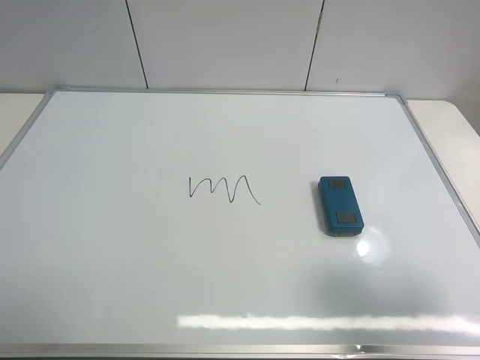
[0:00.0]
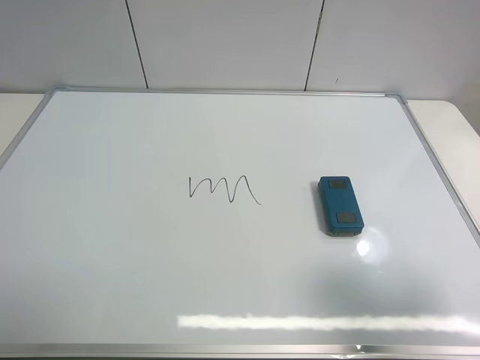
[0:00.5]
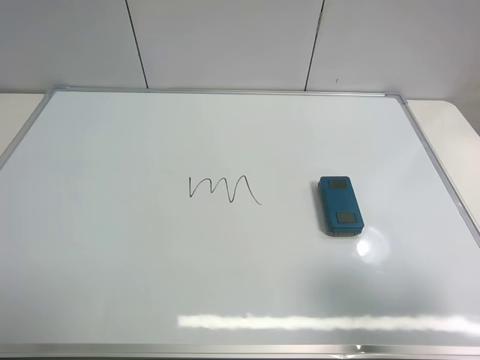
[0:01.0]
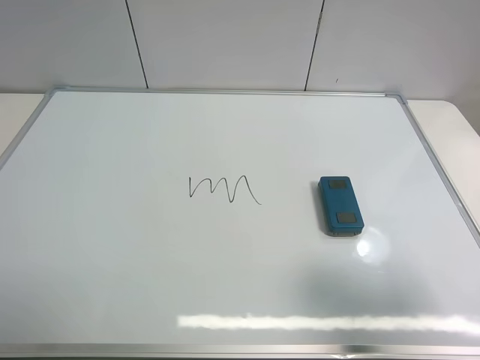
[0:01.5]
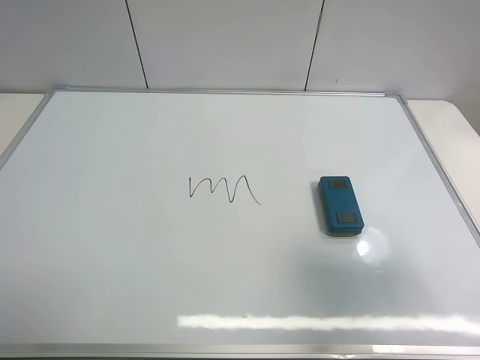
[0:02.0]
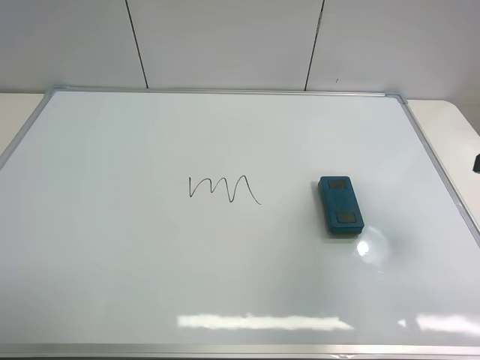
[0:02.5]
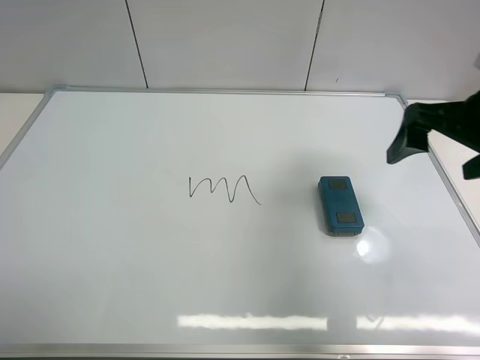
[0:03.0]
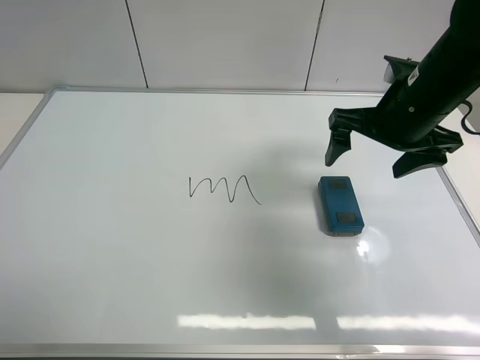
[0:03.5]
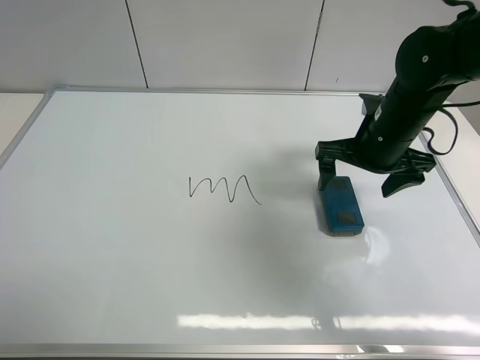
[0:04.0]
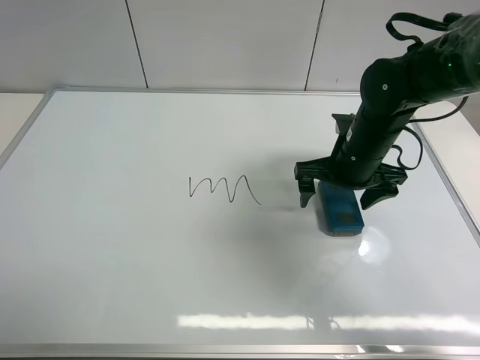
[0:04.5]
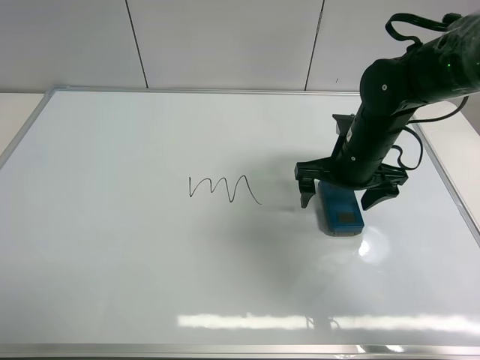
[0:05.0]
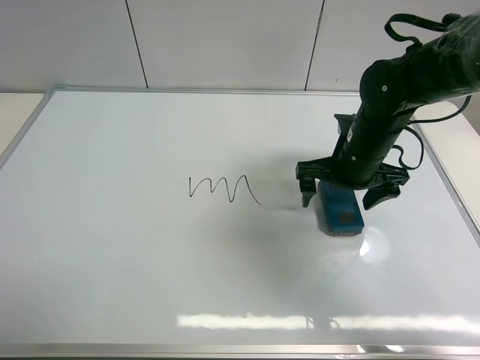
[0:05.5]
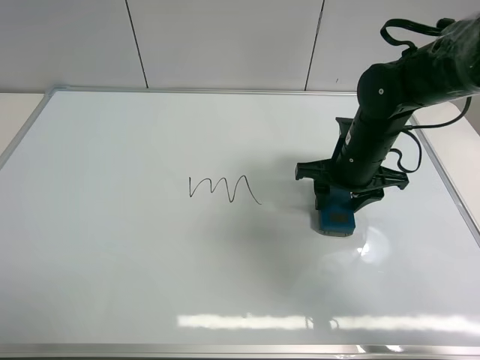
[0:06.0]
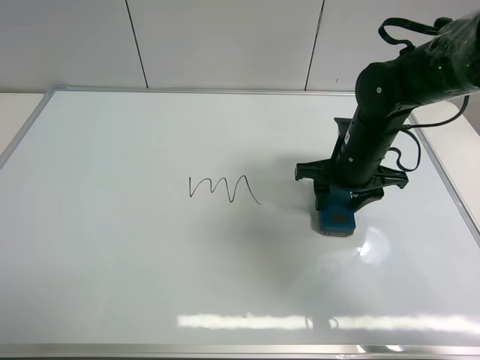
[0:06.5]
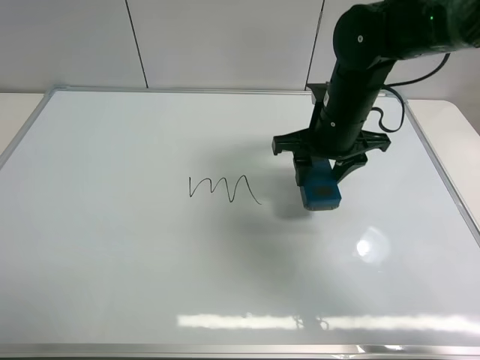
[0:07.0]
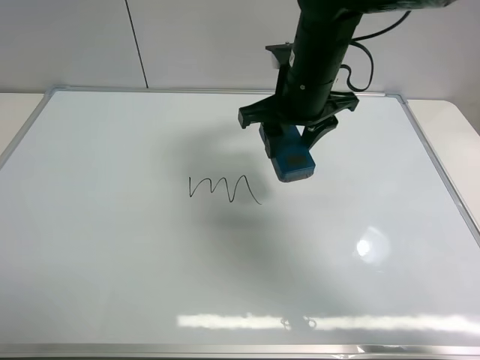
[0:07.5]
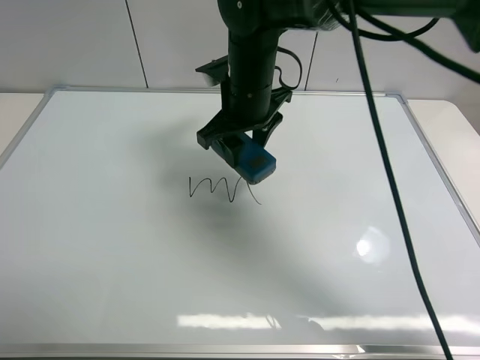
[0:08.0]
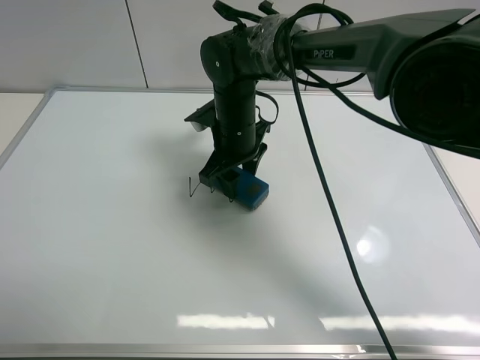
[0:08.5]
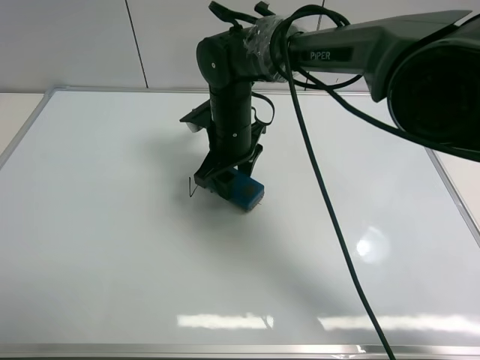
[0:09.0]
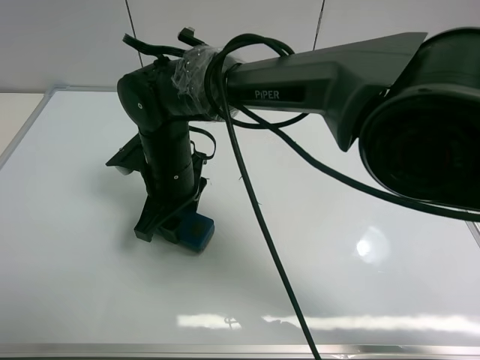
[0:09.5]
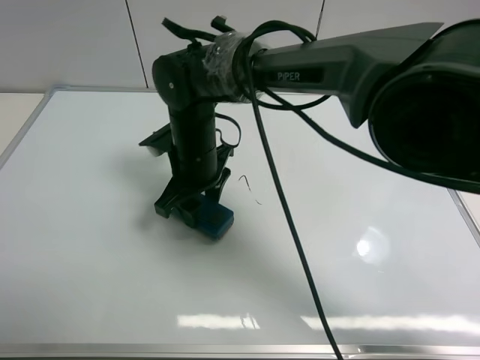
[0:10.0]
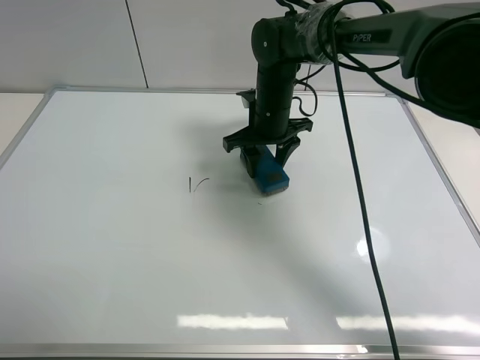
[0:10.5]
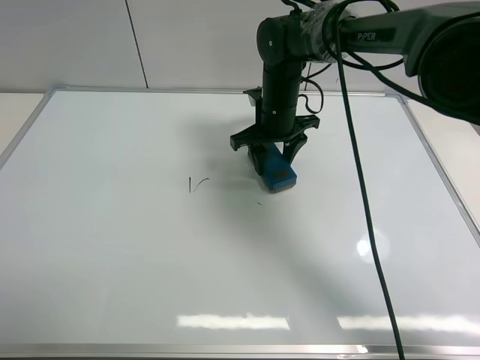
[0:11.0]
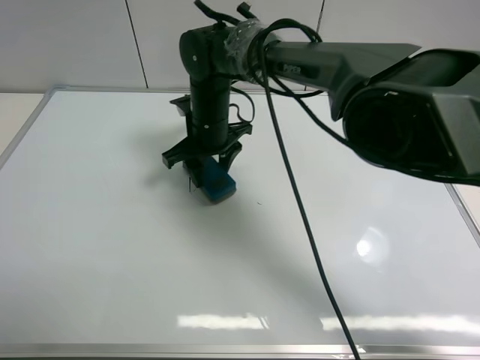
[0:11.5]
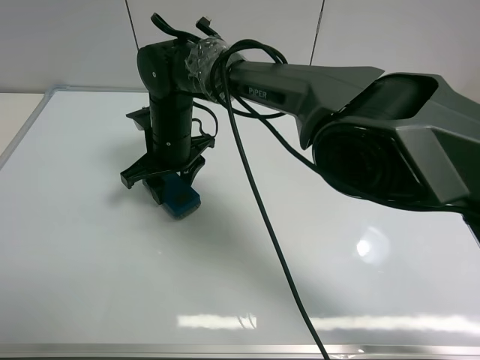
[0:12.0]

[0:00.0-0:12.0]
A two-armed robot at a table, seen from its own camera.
Task of the whole recording: use the right gripper to pick up the board eraser, wipe the notes on the whiteboard clean, and then put them back in place.
Step, 0:00.0 to 0:06.5: Pick up the board eraser with right gripper.
0:00.0 to 0:02.0: The right gripper ends up about 5 cm from where it was.
0:02.0 to 0:04.0: The right gripper shifts about 30 cm forward, downward and to the left.
0:04.0 to 0:06.0: The right gripper closes its fingers.
0:06.0 to 0:08.0: The right gripper heads to the left and upward, covering about 20 cm.
0:08.0 to 0:10.0: The right gripper goes roughly 10 cm downward and to the left.
0:10.0 to 0:12.0: The right gripper moves about 10 cm to the right and comes back.

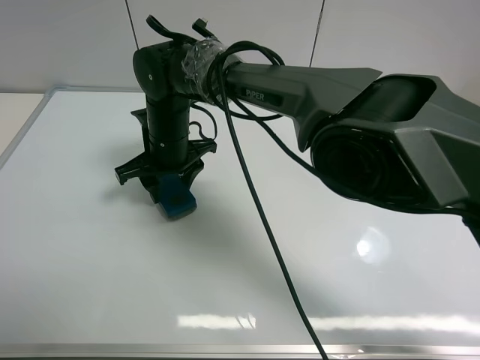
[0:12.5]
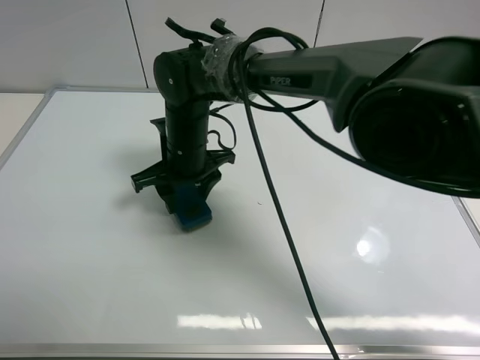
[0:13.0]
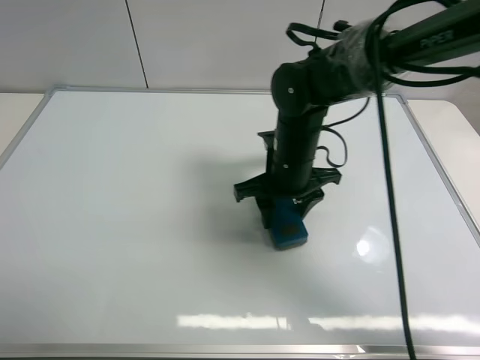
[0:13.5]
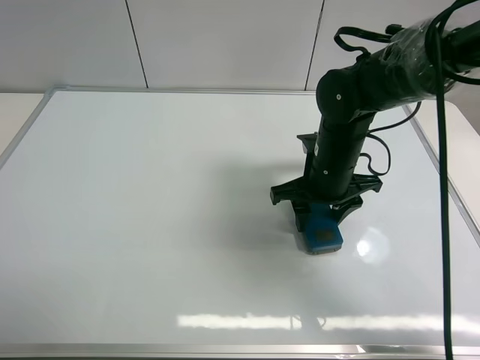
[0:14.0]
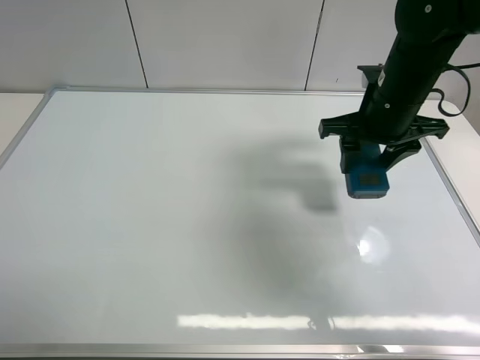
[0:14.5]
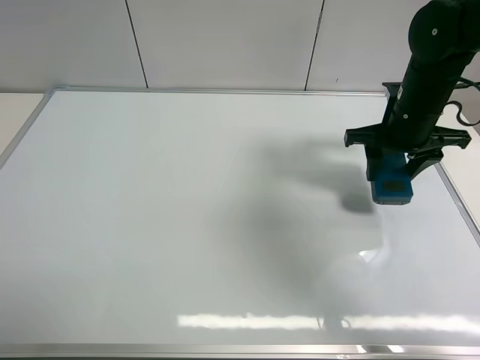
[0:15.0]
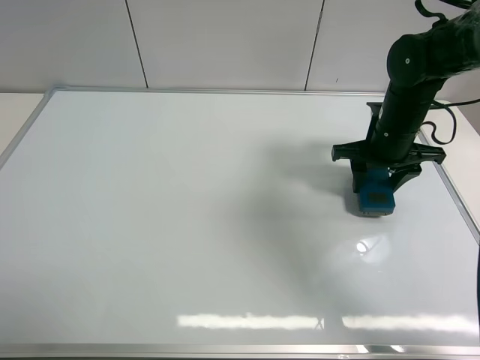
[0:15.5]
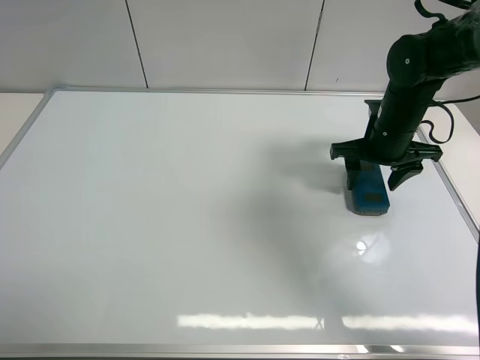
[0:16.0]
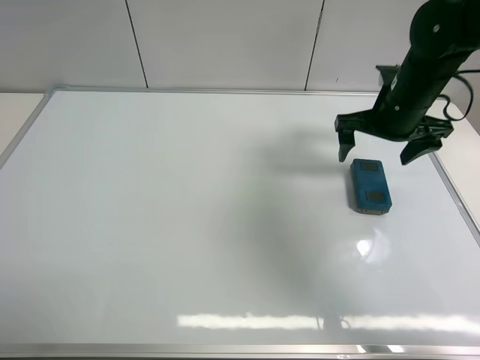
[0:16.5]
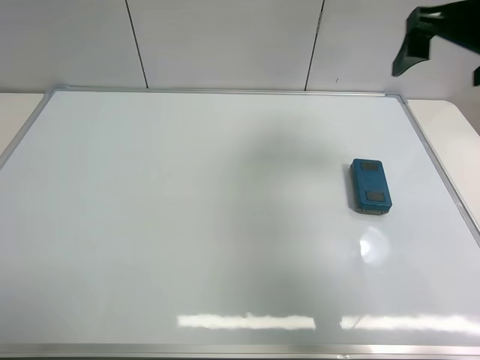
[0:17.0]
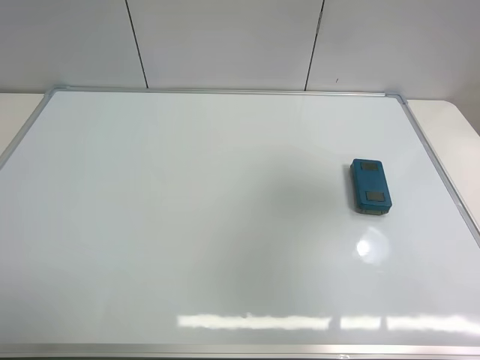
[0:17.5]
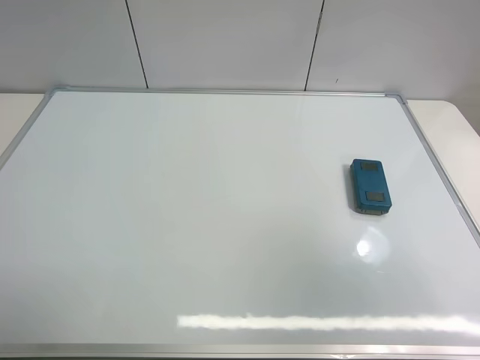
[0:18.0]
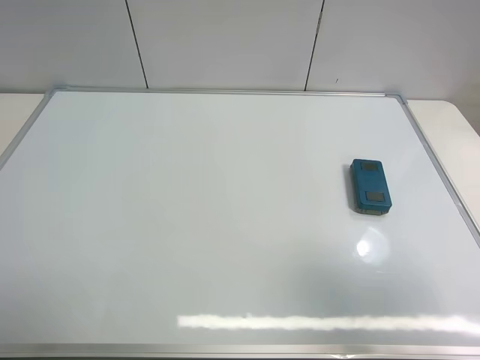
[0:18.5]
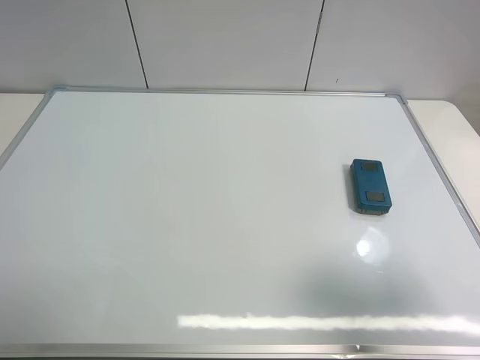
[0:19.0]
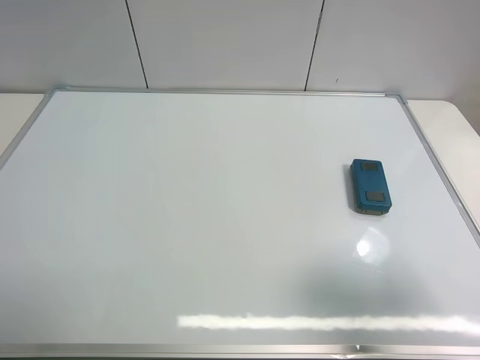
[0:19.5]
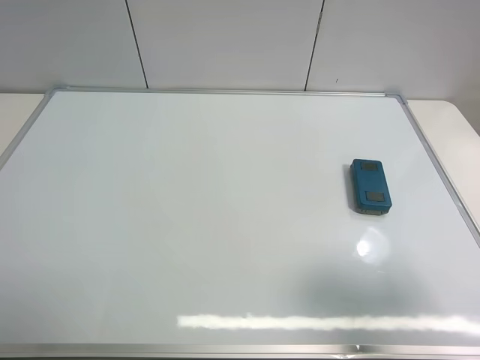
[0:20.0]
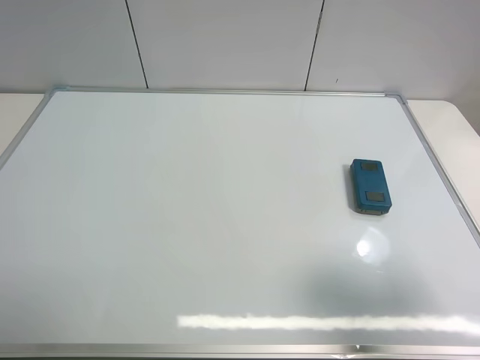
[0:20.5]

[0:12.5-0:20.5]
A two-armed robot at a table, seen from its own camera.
Task of the whole recording: use the right gripper to pick up the board eraser, wipe the notes on the whiteboard clean, and then put them back in place.
Step, 0:14.5 to 0:16.0: Place the board eraser on the right side of board with right gripper.
0:12.5 to 0:14.5: The right gripper heads to the right, covering roughly 30 cm.
0:14.5 to 0:16.5: The right gripper opens up.
0:16.5 to 0:18.5: The right gripper travels backward and upward by some 40 cm.
